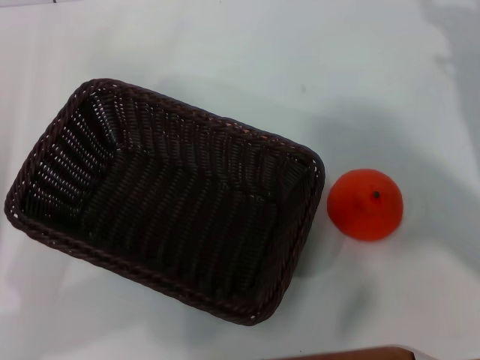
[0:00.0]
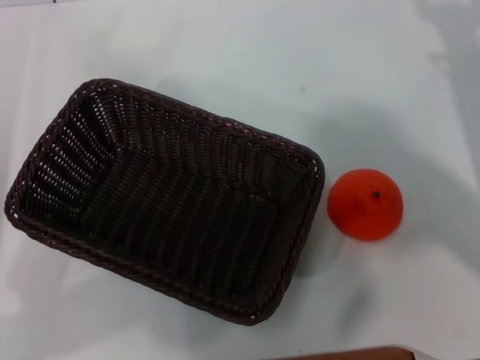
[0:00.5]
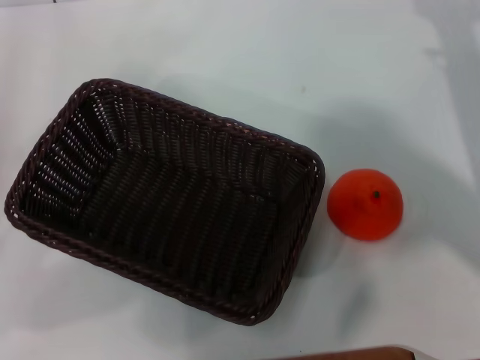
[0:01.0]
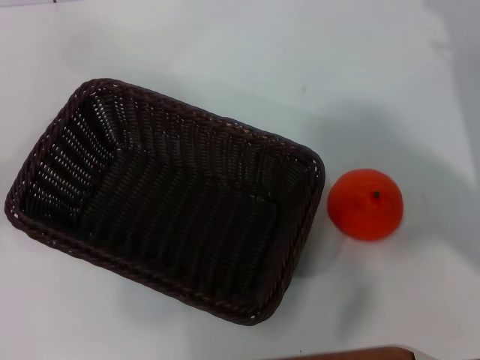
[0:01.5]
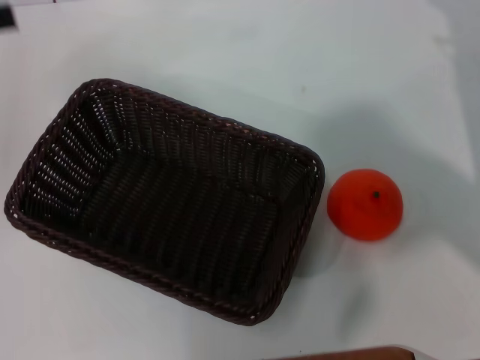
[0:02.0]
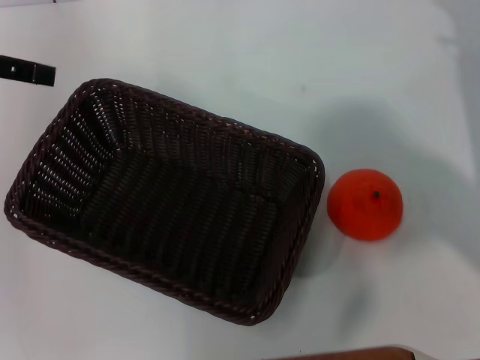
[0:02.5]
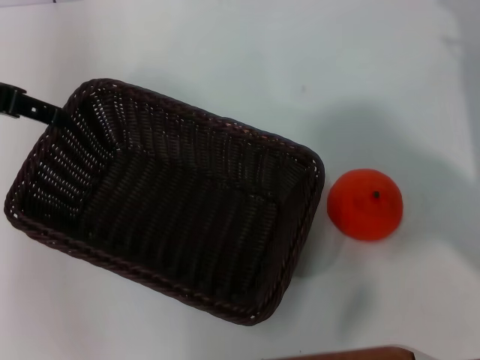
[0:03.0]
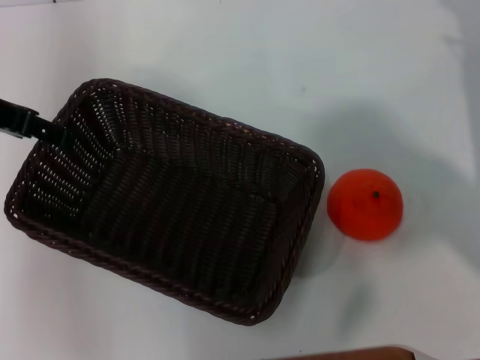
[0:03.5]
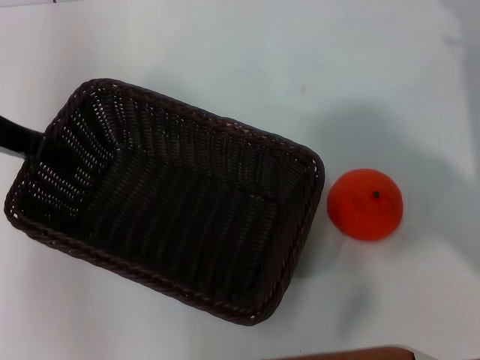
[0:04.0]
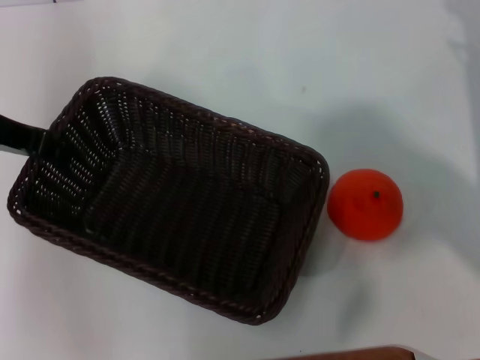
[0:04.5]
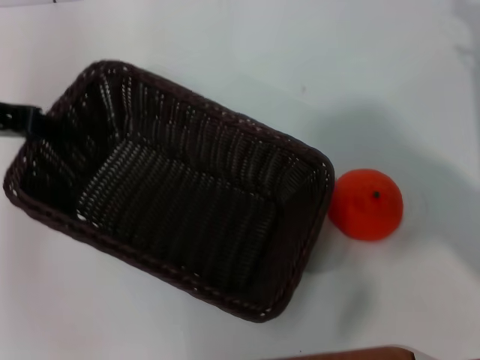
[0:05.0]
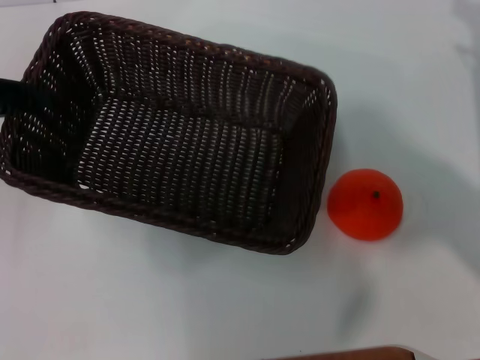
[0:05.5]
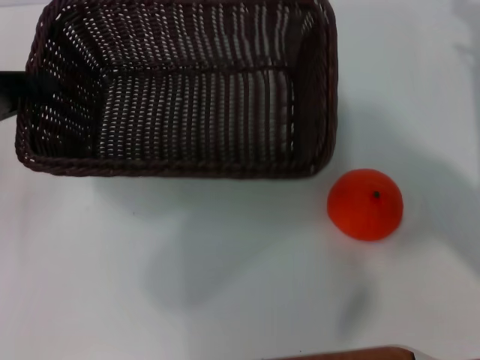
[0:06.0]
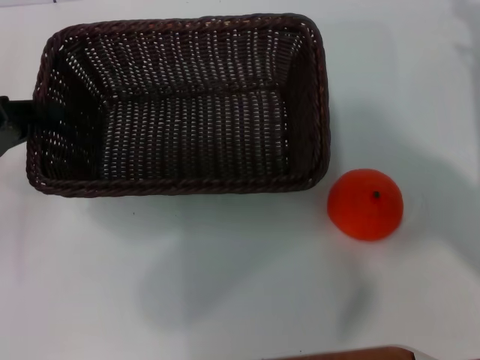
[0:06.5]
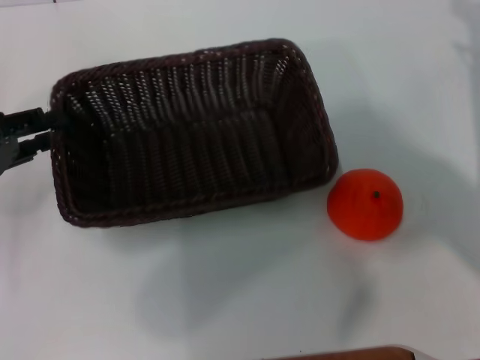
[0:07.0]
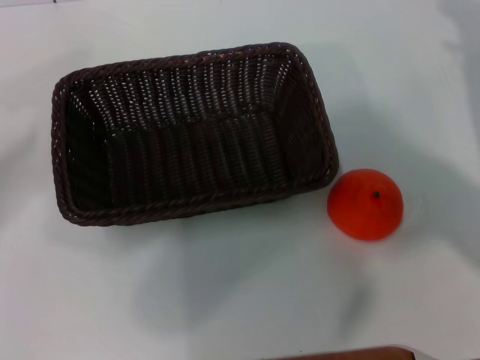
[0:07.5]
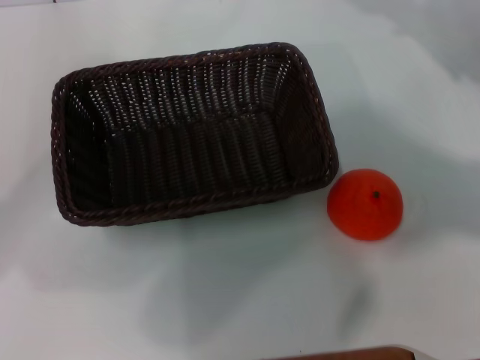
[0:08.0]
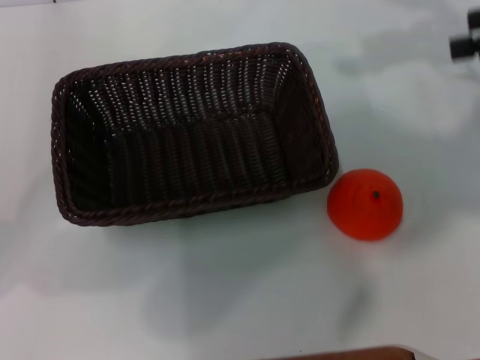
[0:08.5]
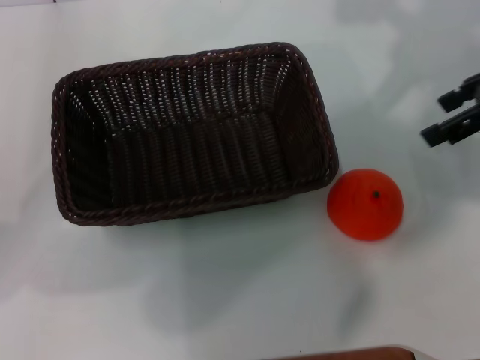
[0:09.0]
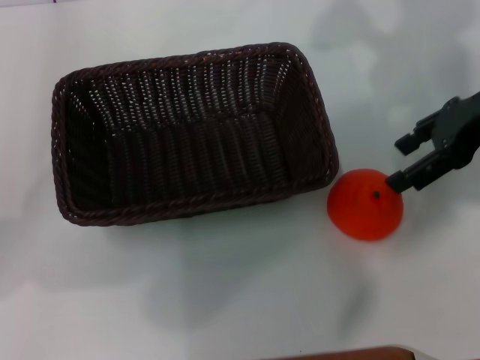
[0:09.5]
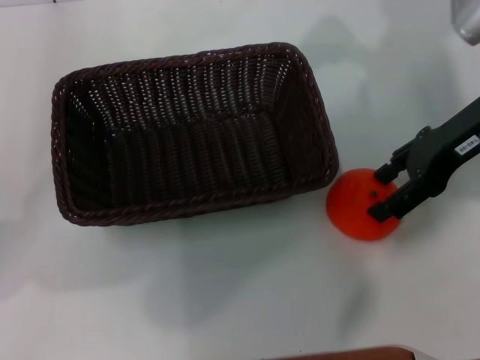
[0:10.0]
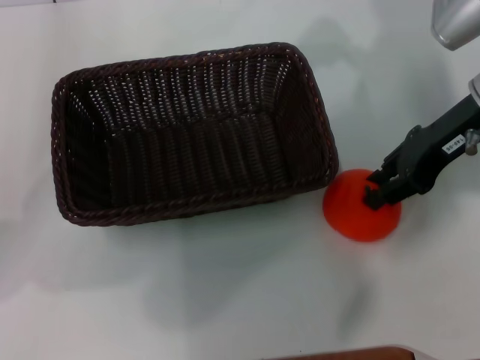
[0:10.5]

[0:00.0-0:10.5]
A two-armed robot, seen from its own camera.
Task of the whole recording: the left gripper pick up the black basket and place it horizontally in the middle of the table, the right gripper pick up the orange and place it into the black basket.
Step, 0:00.0 to 0:05.0: Pick up the dark basket with the left gripper.
Step, 0:05.5 to 0:07.0: Place the dark basket in the center of view with the left gripper.
0:00.0 to 0:02.0: The left gripper moves upward and forward, approximately 15 cm.
0:02.0 to 0:04.0: The left gripper heads to the right, covering approximately 10 cm.
0:04.0 to 0:06.5: The left gripper is displaced to the left, downward and backward by approximately 10 cm, and closes its fingers.
0:06.5 to 0:08.5: The left gripper opens. Meanwhile the right gripper moves upward, roughly 15 cm.
0:08.5 to 0:10.5: The right gripper heads to the left and downward, covering some 15 cm.

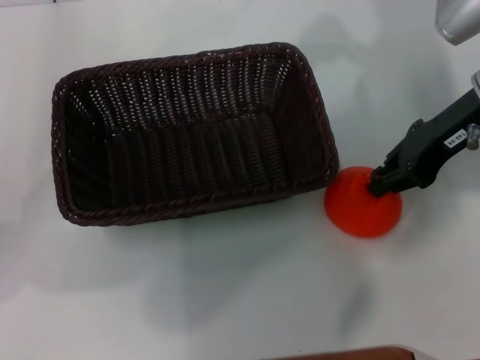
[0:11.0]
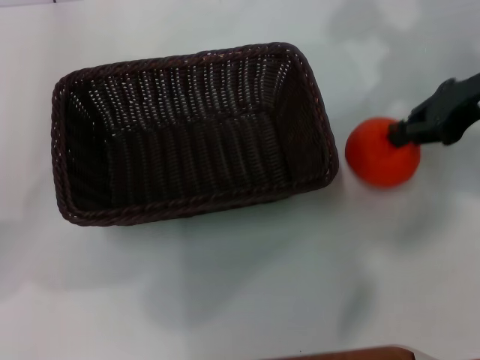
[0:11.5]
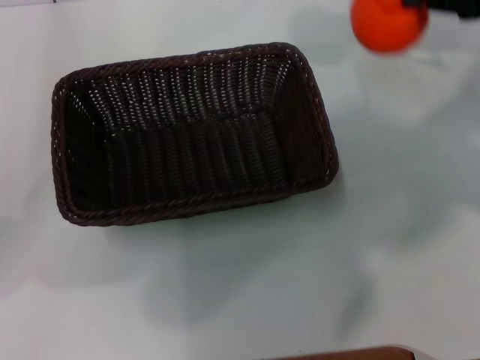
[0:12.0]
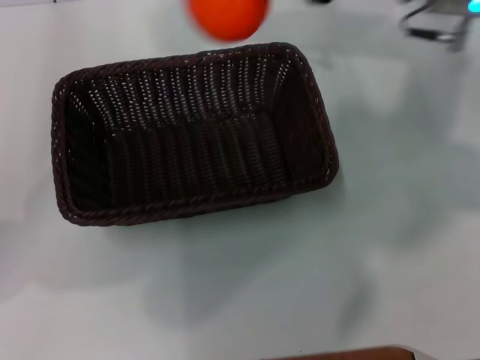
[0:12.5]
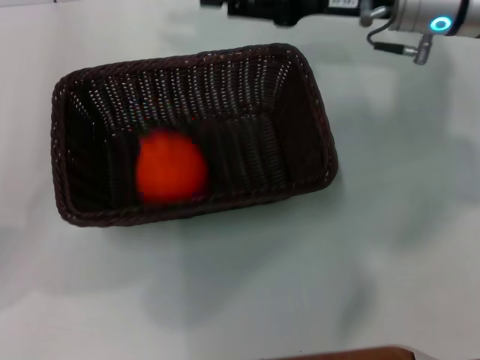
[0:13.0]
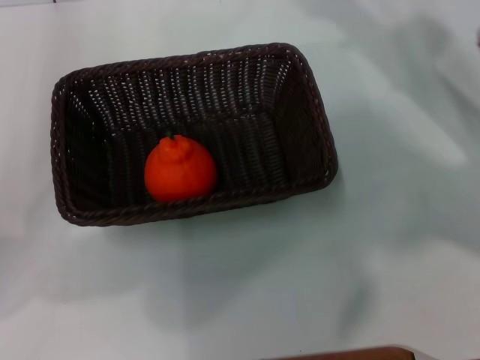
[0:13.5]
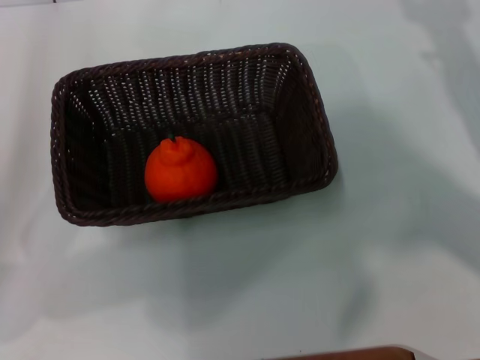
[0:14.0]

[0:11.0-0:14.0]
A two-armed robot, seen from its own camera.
Task of the whole recording: the left gripper pick up the black basket and place it horizontally in the middle of the table, the right gripper pick up the orange and place it into the black basket.
Step, 0:11.5 to 0:12.5: Place the orange into the dark basket with the right gripper.
0:11.0 to 0:12.5: The right gripper shifts by about 5 cm.
0:12.5 to 0:14.0: The right gripper heads to the right, downward and backward, covering approximately 20 cm, and opens up.

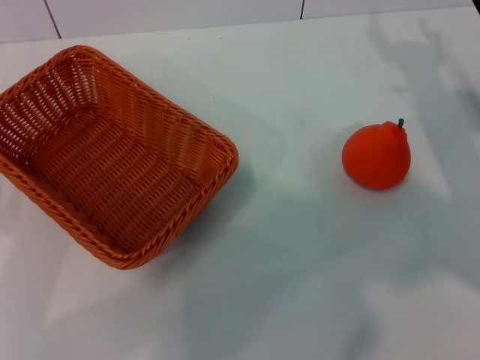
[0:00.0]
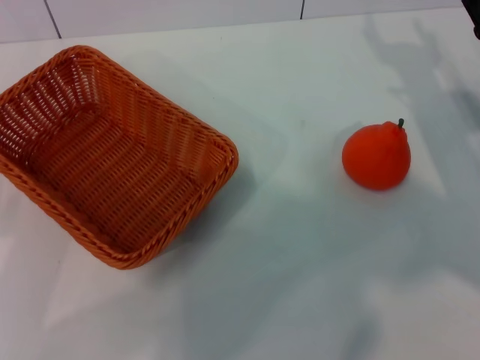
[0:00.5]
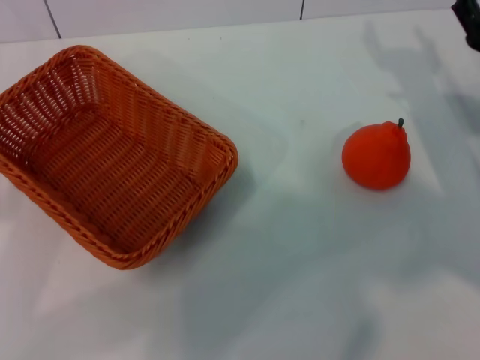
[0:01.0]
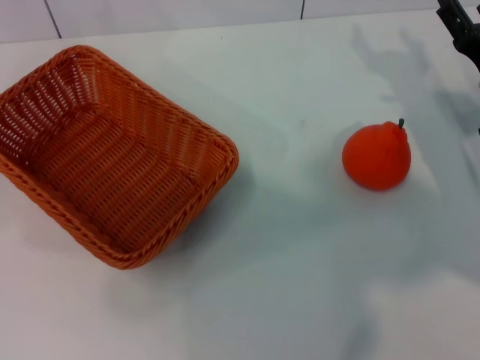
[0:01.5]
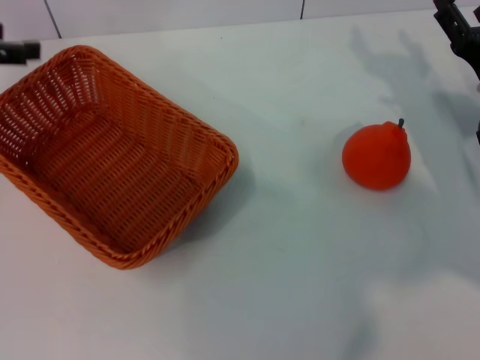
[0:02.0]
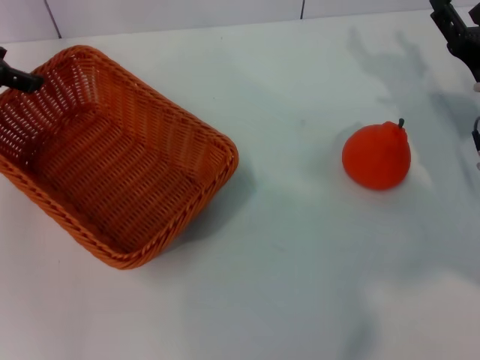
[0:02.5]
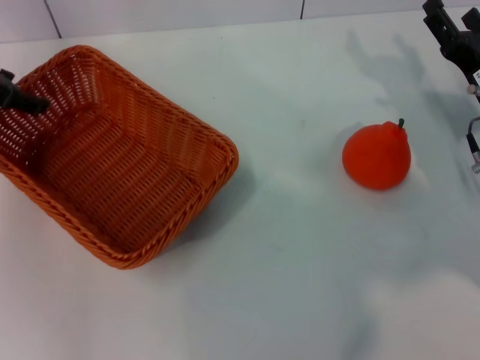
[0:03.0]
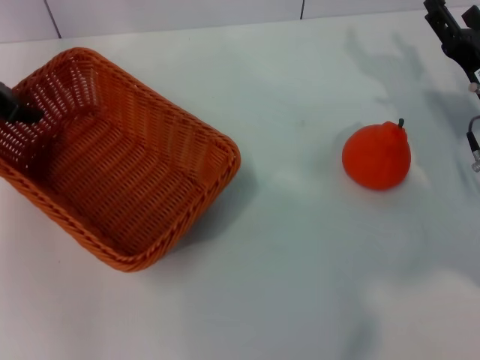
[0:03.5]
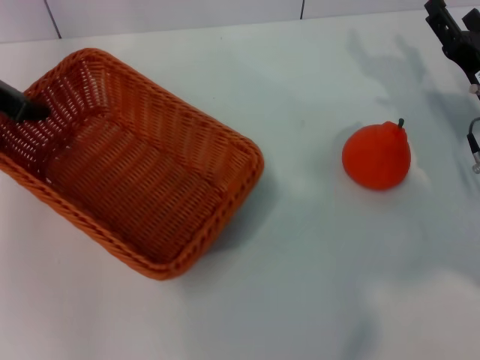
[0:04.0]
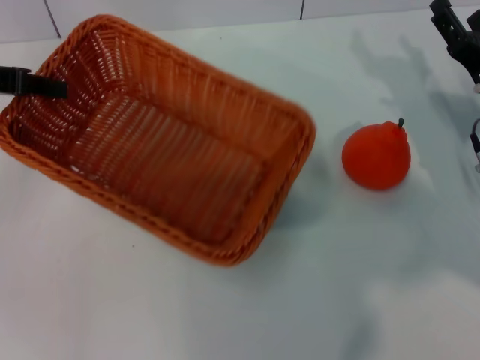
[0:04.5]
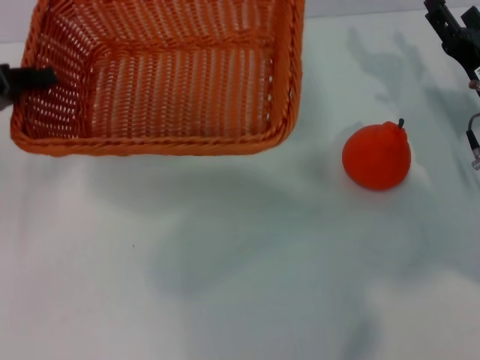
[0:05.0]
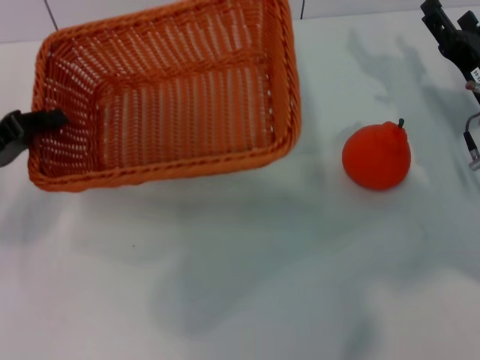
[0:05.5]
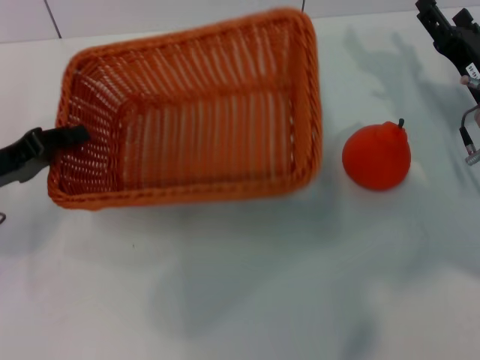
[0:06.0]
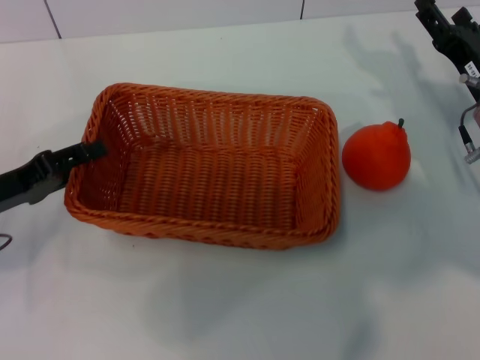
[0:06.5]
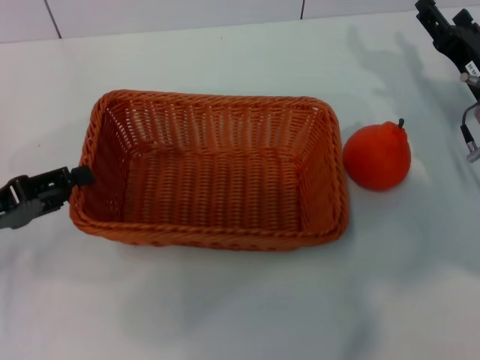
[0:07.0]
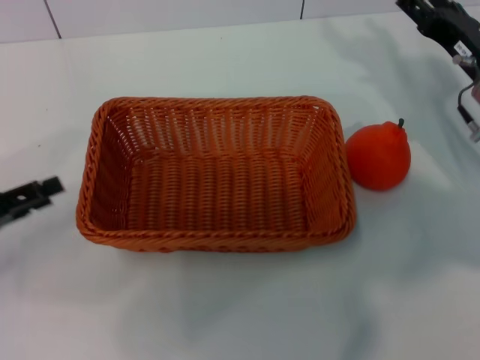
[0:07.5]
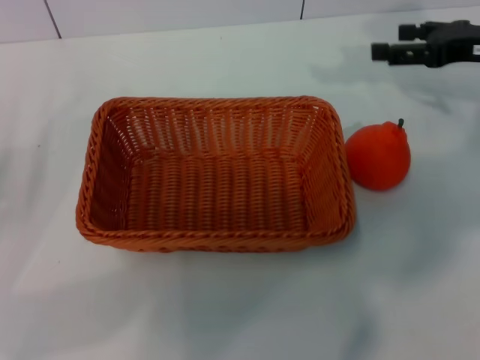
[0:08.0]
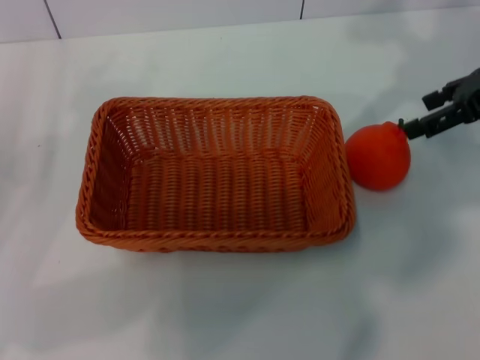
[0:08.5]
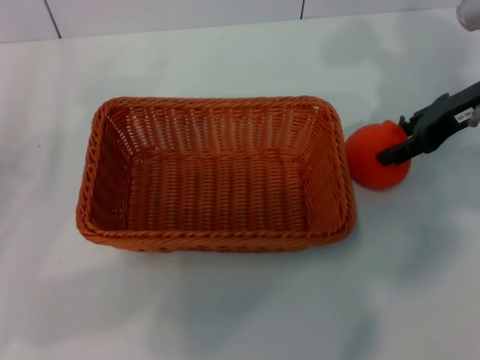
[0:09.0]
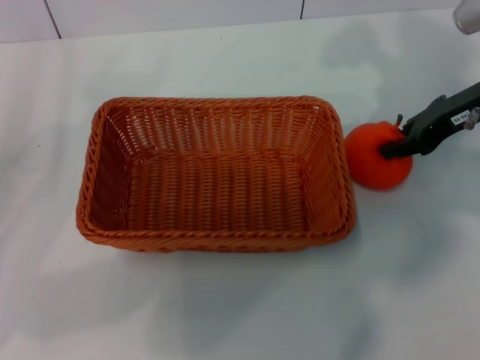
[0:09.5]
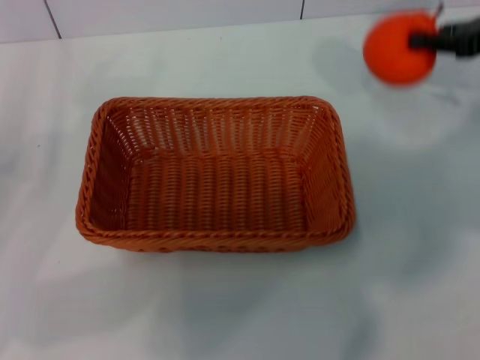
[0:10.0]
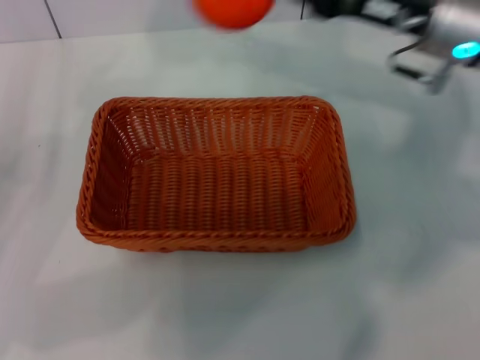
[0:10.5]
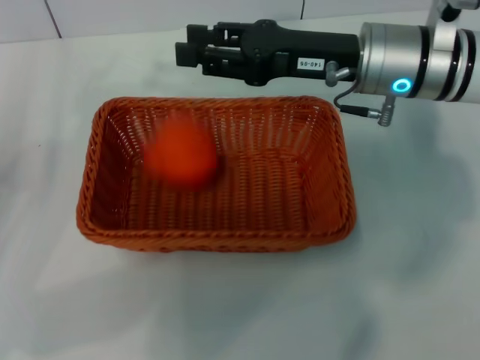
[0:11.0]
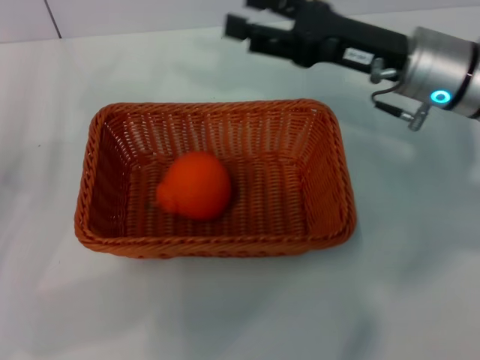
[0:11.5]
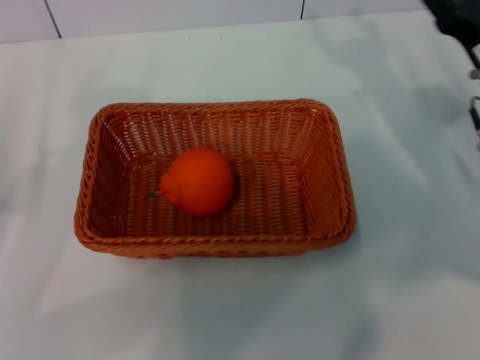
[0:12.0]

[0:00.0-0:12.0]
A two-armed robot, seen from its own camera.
Task of the whole recording: the left gripper pick up the yellow basket and place it horizontally in the middle of the table, the right gripper pick up the orange and place it into the yellow basket.
Step, 0:00.0 to 0:04.0: Pick up the light basket with the left gripper.
Step, 0:04.5 to 0:07.5: Place the light basket in the center of view with the left gripper.
Step, 0:08.0 to 0:09.5: Pick up the orange with the right gripper.
Step, 0:10.0 to 0:11.0: Place the orange into the light basket with the right gripper.
0:00.0 to 0:02.0: The left gripper travels forward and upward by roughly 20 cm.
0:02.0 to 0:04.0: The left gripper changes place by about 5 cm, and closes its fingers.
0:04.0 to 0:06.0: The left gripper shifts about 15 cm backward and downward.
0:06.0 to 0:08.0: The right gripper is displaced upward and to the right by some 10 cm. Meanwhile the left gripper goes roughly 10 cm to the left and backward, and opens.
0:08.0 to 0:10.0: The right gripper closes up.
0:10.0 to 0:12.0: The right gripper is displaced downward, to the left and backward by approximately 15 cm, and opens.
